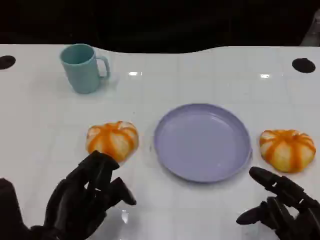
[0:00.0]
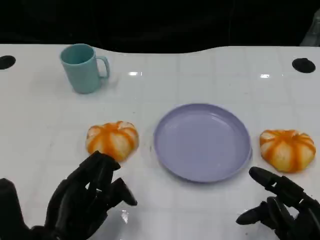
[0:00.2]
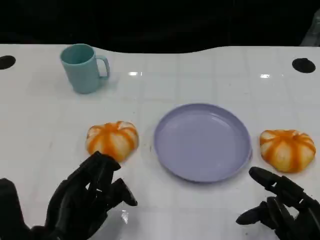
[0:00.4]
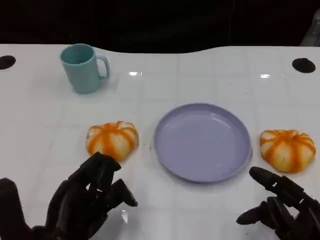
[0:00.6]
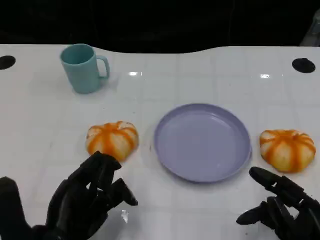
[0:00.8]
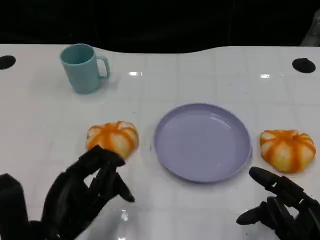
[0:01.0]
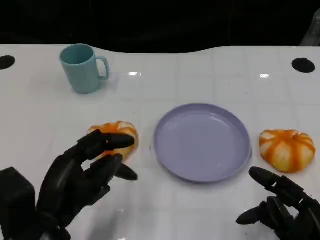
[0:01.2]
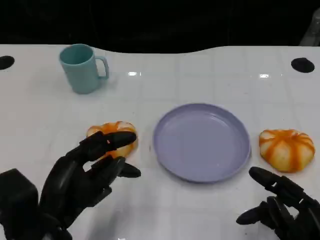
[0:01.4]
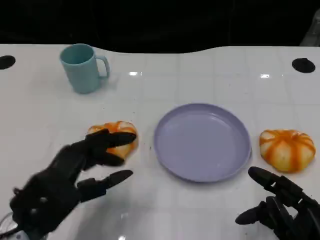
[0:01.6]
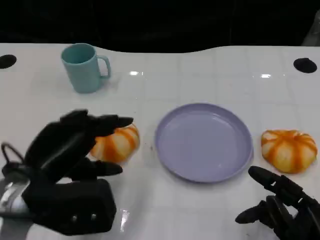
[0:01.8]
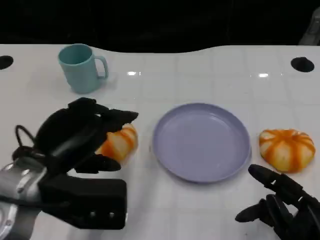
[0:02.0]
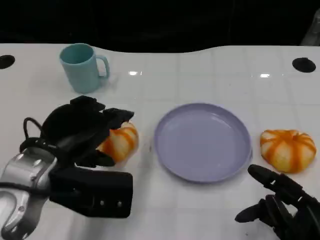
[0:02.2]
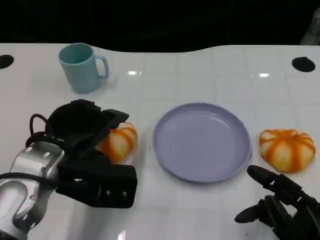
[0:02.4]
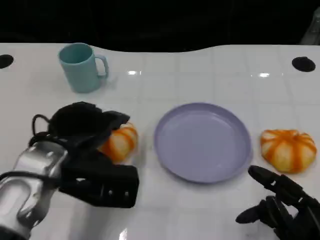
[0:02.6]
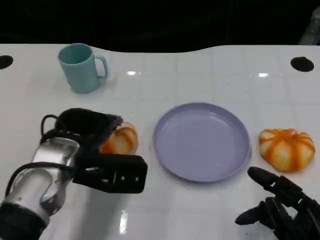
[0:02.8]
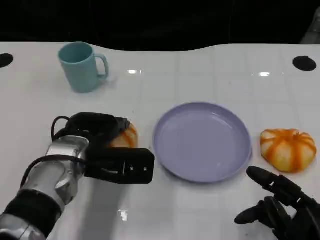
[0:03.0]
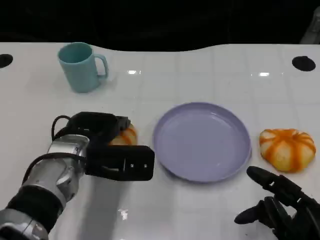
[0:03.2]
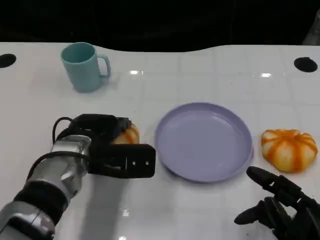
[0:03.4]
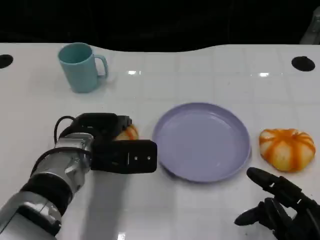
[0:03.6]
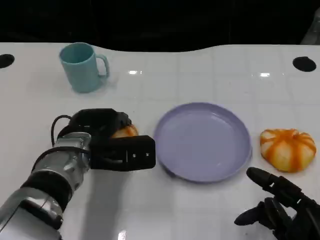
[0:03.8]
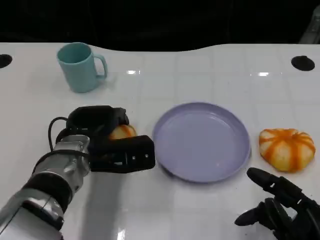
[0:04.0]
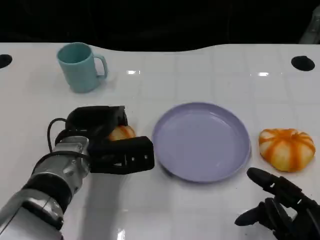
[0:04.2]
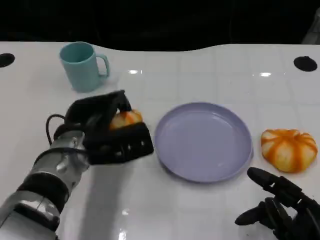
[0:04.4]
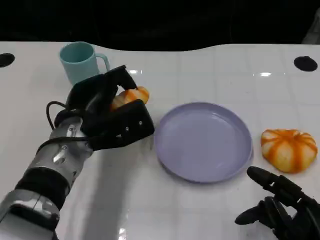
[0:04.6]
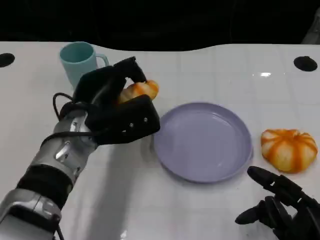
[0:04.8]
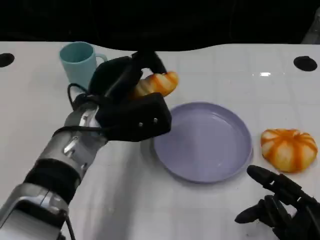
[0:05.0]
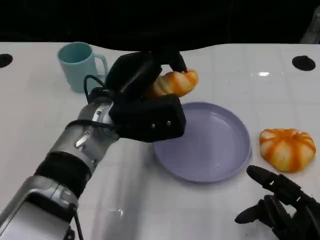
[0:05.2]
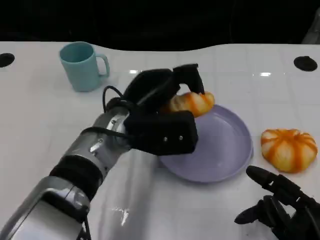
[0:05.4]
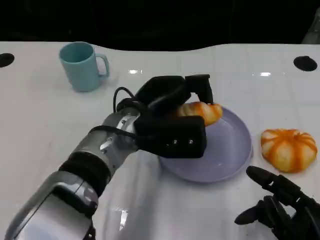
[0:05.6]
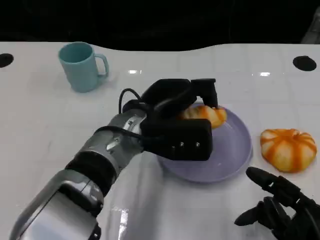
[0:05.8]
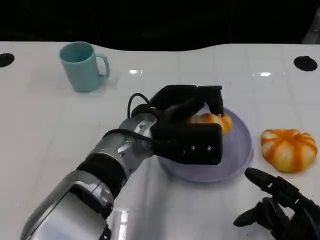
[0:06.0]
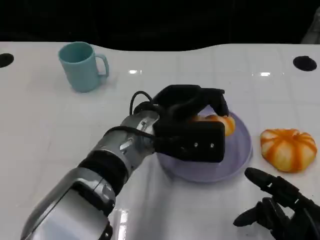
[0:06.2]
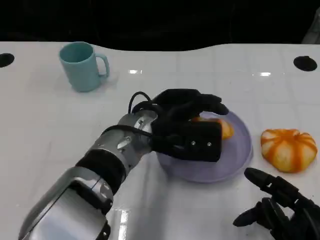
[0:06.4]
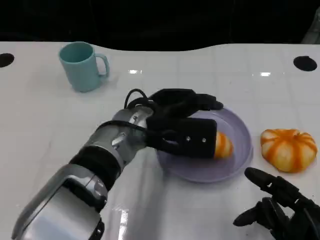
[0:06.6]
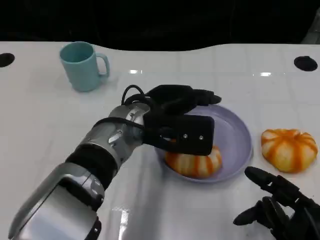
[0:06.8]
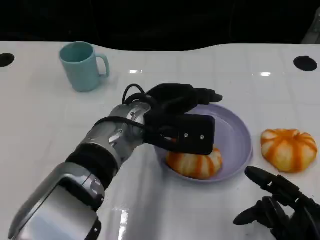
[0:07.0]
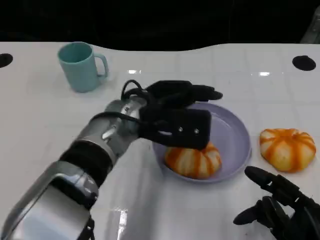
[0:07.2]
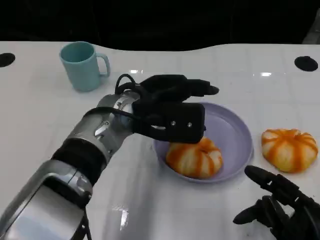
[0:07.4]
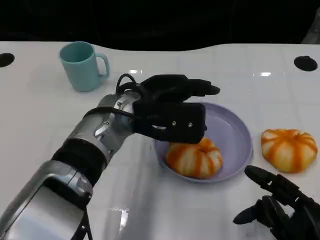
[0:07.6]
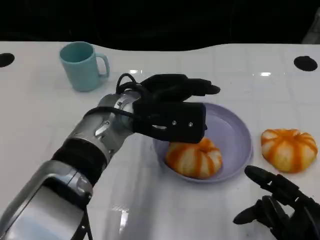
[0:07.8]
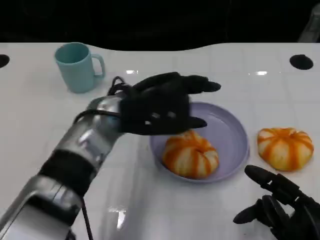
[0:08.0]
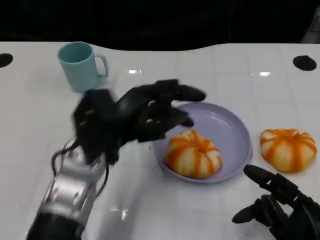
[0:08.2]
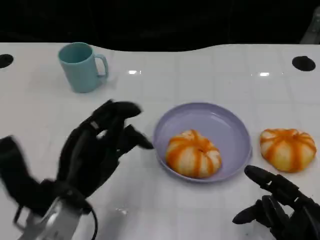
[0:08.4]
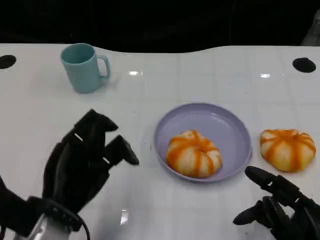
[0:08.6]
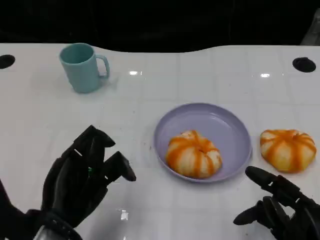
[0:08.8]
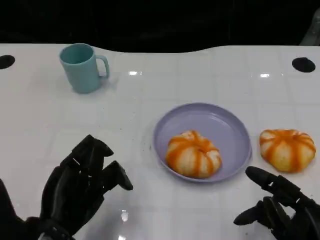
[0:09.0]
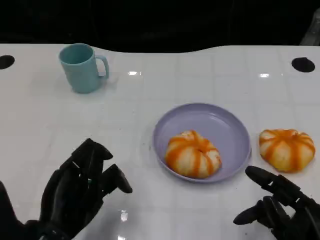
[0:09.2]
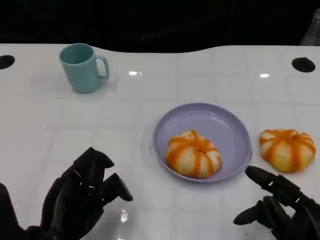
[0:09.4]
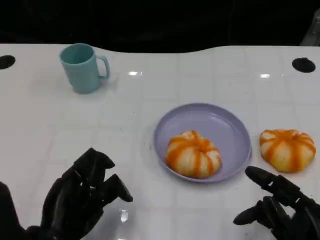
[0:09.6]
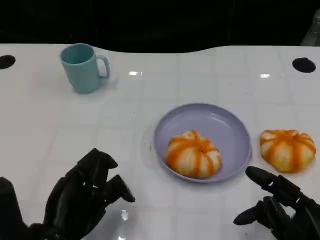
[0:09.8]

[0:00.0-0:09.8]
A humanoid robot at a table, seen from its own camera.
Task of the whole recording: Grasp the bread from the table and place it into the plate.
0:01.4 to 0:02.8: The left hand travels forward by approximately 10 cm.
0:02.8 to 0:04.2: The hands move only a little.
0:04.2 to 0:05.6: The left hand shifts roughly 10 cm to the right and upward.
0:05.6 to 0:07.0: There are only small adjustments of the hands.
0:07.0 to 0:08.4: The left hand shifts about 15 cm to the left and backward.
0:08.4 to 0:09.8: The hands stay close to where they were, moving slightly.

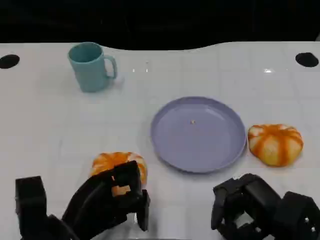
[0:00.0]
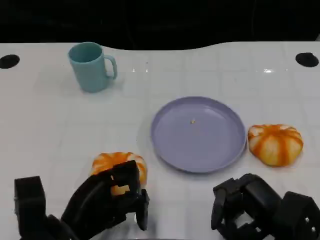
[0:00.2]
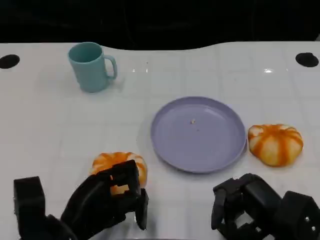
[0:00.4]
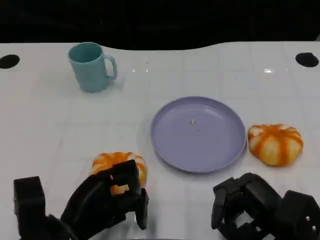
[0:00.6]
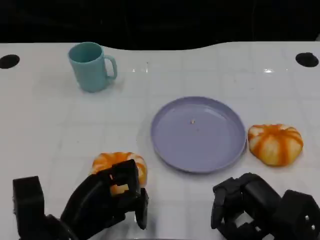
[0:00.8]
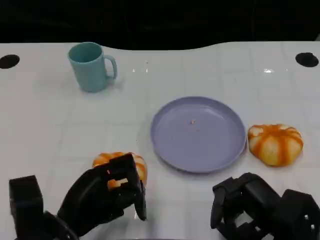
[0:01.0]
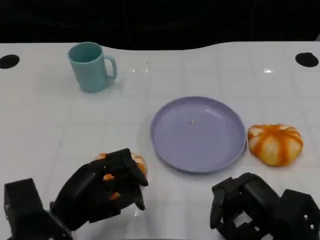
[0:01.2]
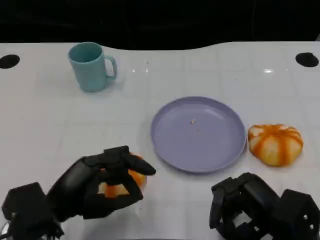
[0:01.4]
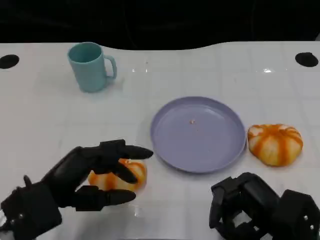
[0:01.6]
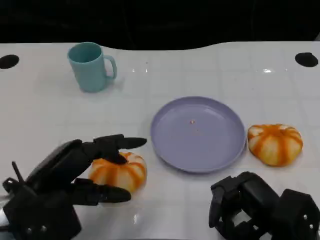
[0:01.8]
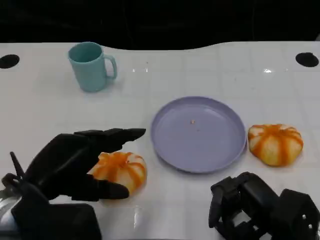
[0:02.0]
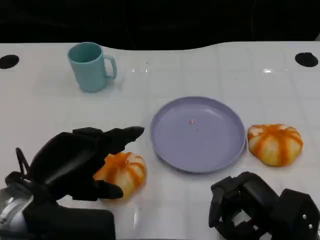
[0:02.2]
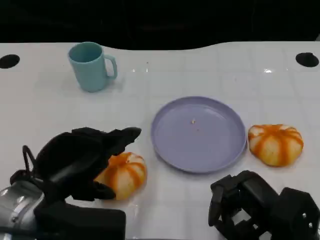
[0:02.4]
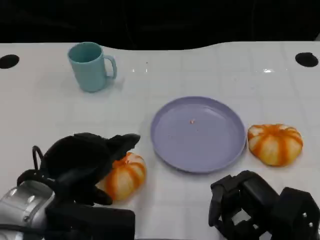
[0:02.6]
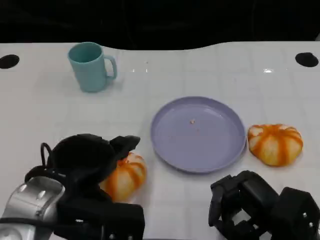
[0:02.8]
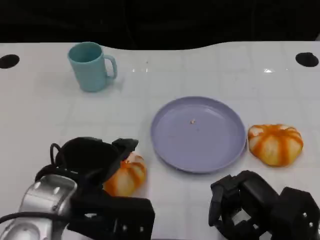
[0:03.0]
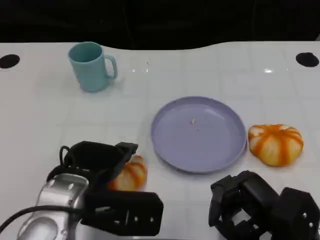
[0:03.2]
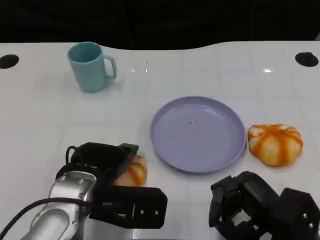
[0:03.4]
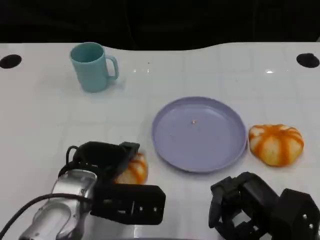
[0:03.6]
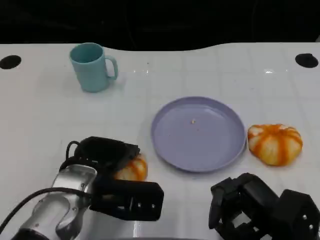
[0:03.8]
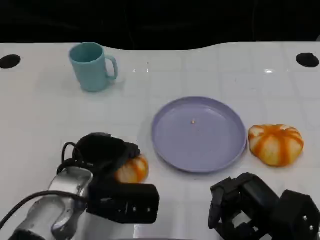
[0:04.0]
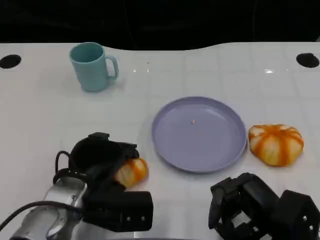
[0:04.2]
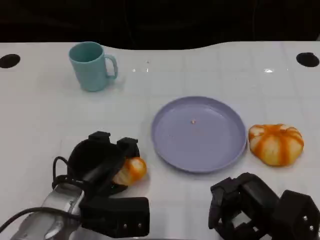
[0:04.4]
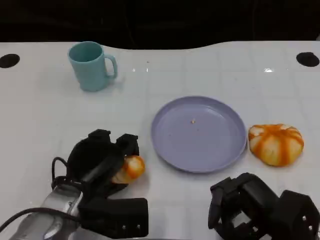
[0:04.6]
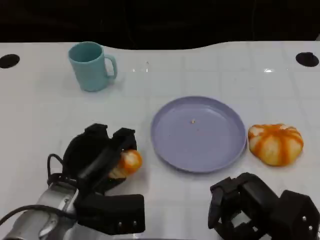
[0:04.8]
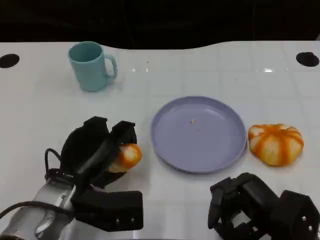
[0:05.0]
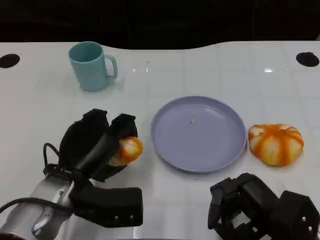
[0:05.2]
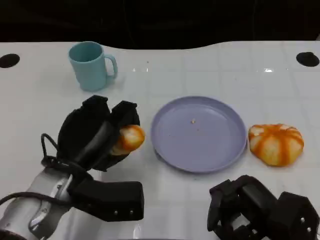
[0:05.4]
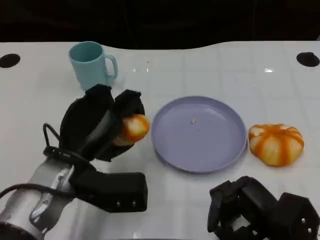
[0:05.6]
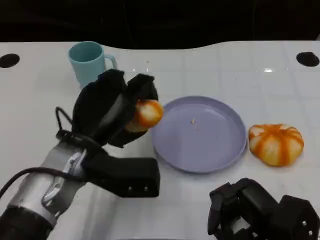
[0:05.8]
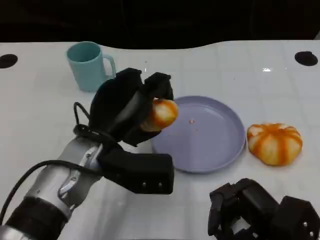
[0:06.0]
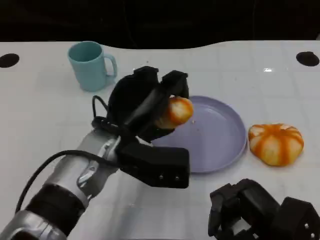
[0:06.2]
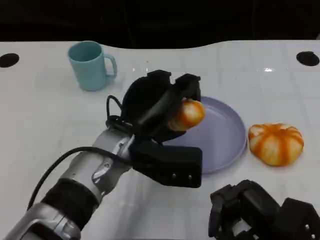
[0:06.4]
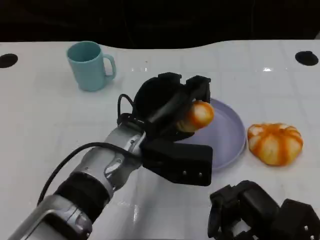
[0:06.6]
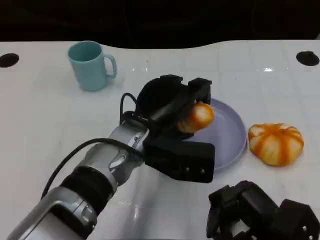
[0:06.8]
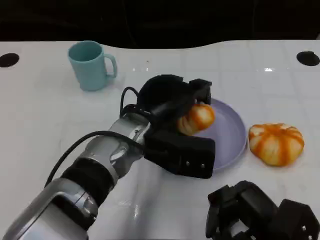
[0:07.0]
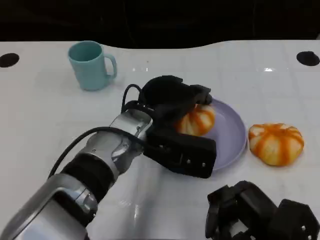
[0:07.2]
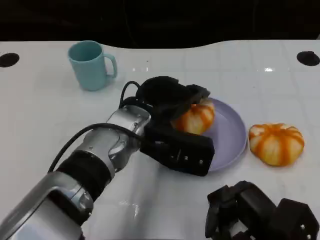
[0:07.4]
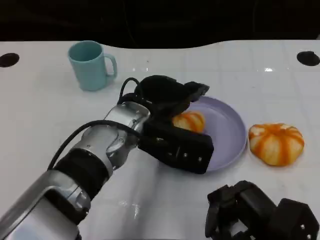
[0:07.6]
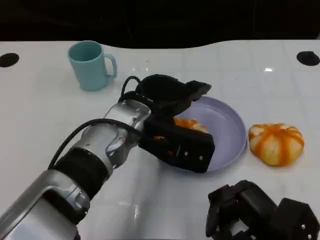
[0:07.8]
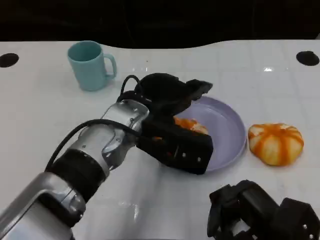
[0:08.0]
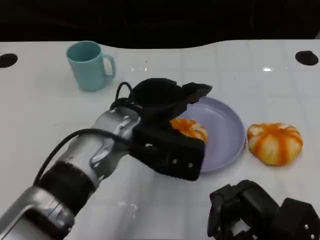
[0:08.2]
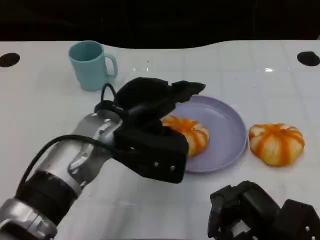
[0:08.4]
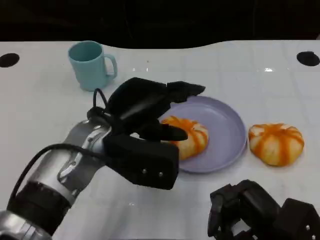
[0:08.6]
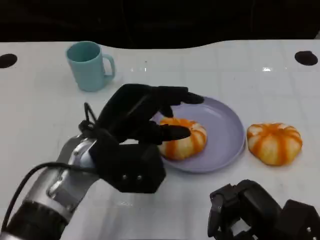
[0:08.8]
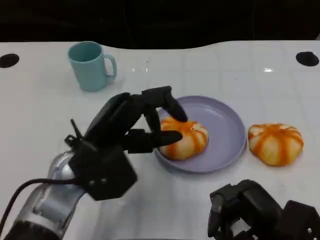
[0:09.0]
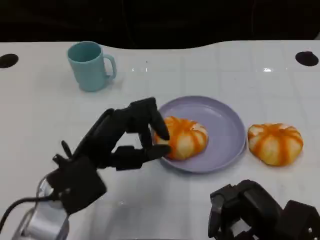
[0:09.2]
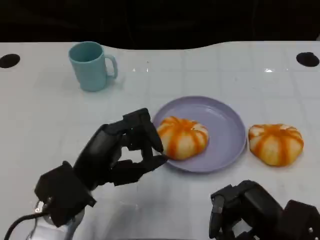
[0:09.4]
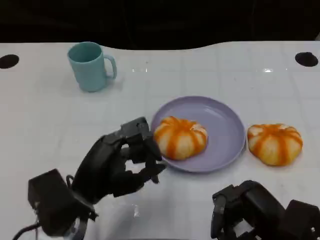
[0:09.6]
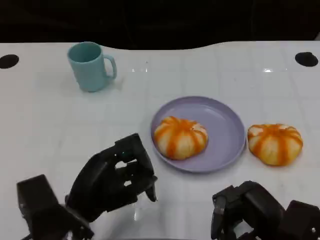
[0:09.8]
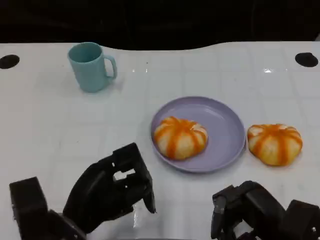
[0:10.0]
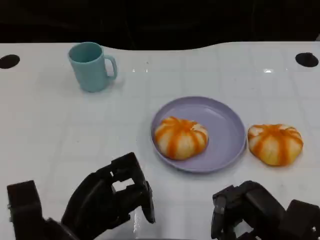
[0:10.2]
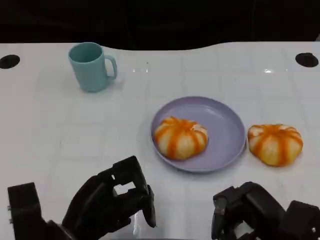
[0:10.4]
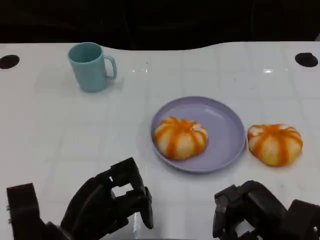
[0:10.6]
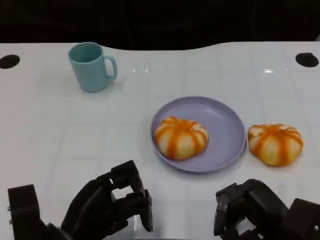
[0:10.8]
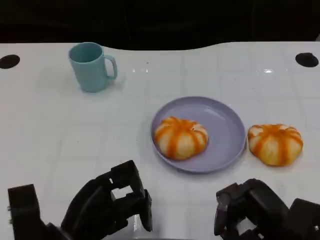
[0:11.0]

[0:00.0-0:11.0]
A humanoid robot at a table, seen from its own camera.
Task of the whole recording: Grasp the bread from the table and place it into the plate.
0:00.0 to 0:01.6: The left hand shifts some 5 cm upward.
0:01.6 to 0:03.2: The left hand travels to the right by some 5 cm.
0:03.2 to 0:04.8: The left hand shifts about 5 cm downward.
0:04.8 to 0:06.2: The left hand heads to the right and upward, covering approximately 10 cm.
0:07.8 to 0:09.4: The left hand goes approximately 15 cm to the left, backward and downward.
0:09.4 to 0:11.0: The left hand travels downward by approximately 5 cm.

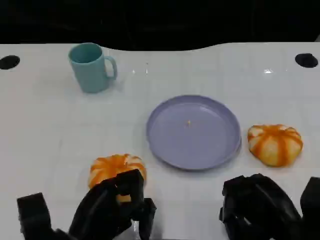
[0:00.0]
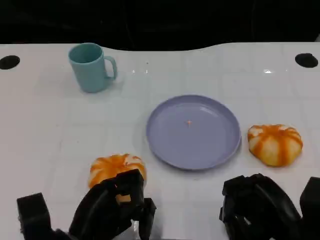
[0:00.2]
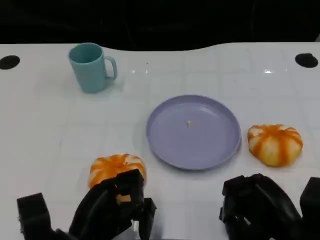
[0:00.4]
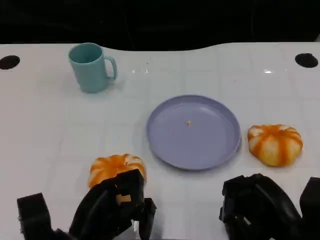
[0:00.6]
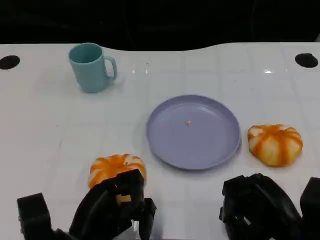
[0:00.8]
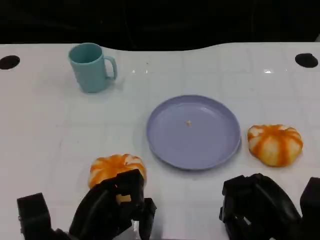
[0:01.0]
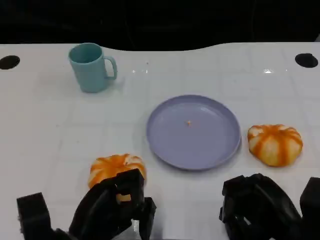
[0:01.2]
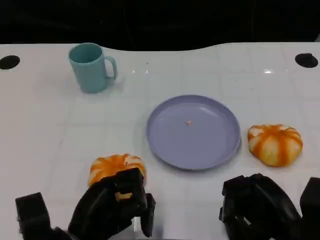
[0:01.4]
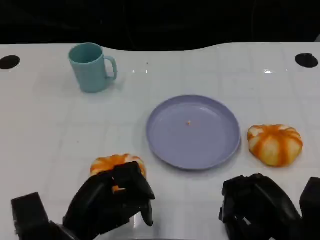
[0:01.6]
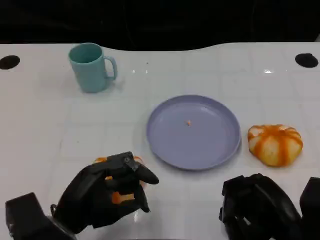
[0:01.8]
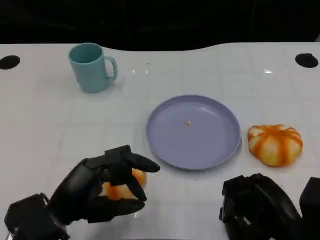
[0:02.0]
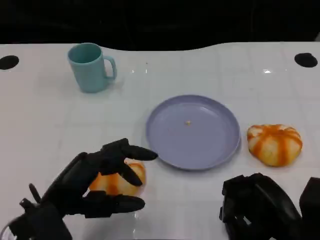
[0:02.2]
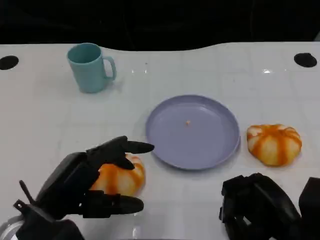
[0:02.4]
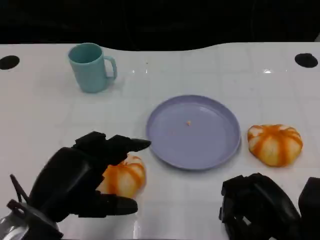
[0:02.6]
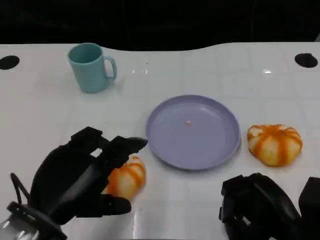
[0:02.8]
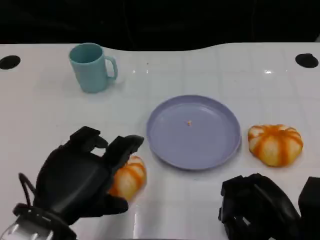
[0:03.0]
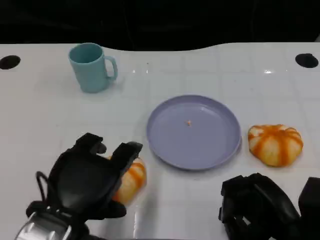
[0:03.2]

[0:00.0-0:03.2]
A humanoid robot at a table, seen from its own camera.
Task of the whole recording: Grasp the bread from the table and place it into the plate.
0:00.0 to 0:01.6: The hands stay close to where they were, moving slightly.
0:01.6 to 0:03.2: The left hand goes about 10 cm upward.
